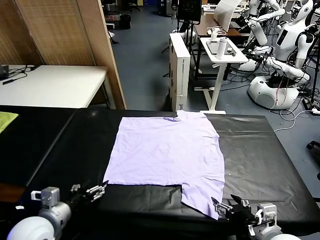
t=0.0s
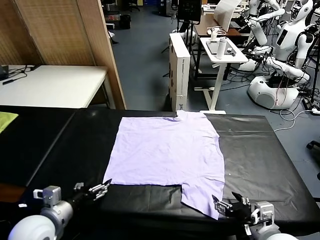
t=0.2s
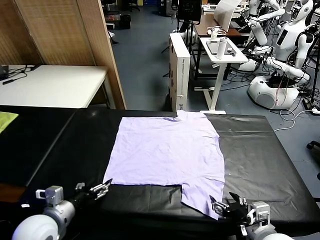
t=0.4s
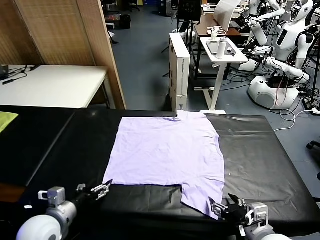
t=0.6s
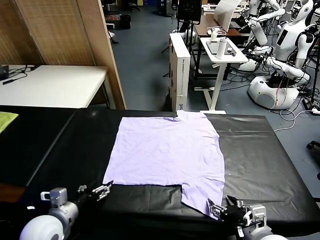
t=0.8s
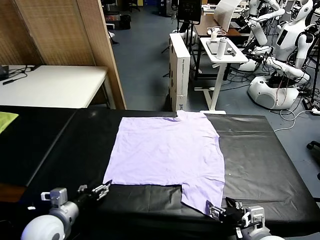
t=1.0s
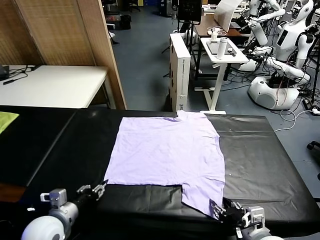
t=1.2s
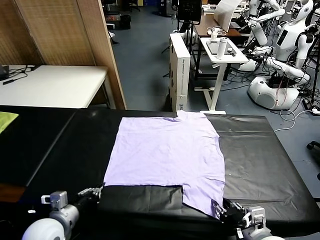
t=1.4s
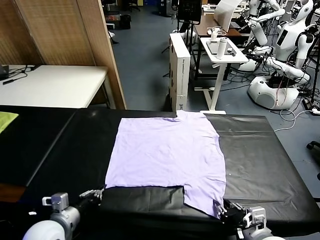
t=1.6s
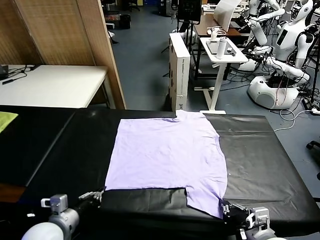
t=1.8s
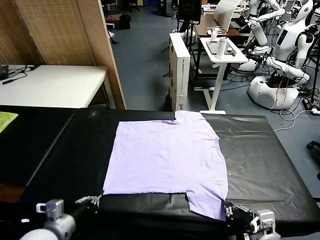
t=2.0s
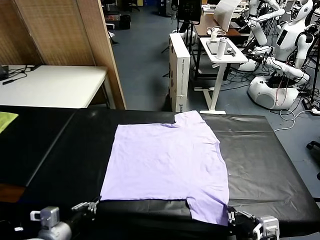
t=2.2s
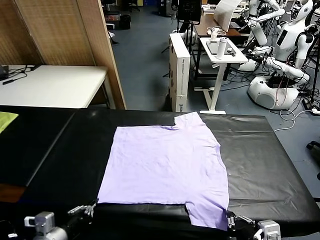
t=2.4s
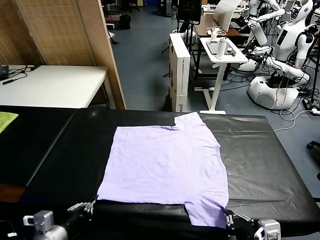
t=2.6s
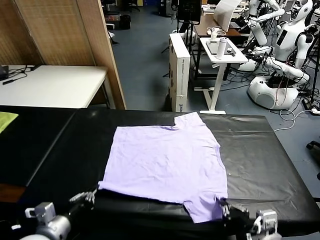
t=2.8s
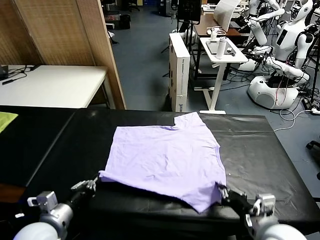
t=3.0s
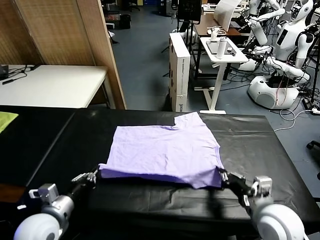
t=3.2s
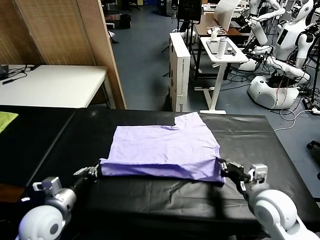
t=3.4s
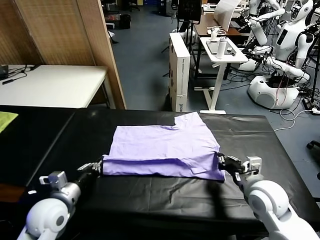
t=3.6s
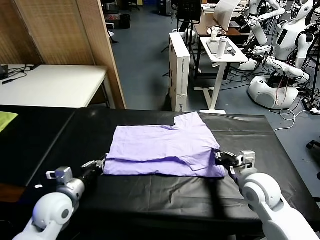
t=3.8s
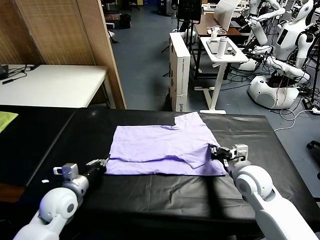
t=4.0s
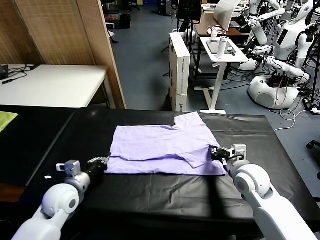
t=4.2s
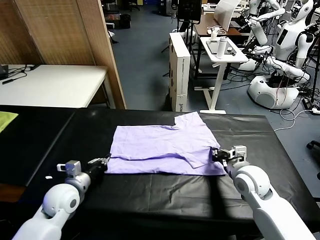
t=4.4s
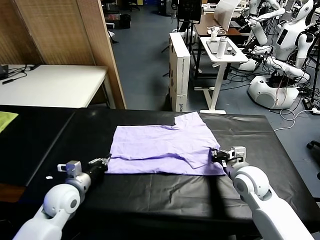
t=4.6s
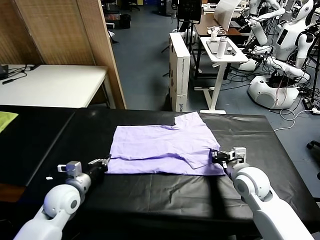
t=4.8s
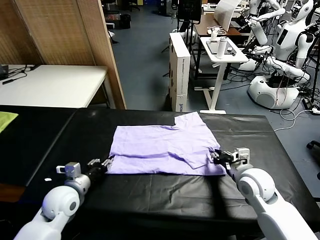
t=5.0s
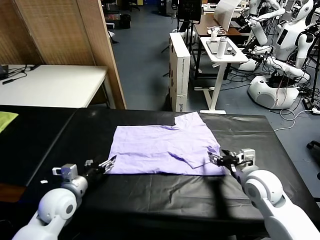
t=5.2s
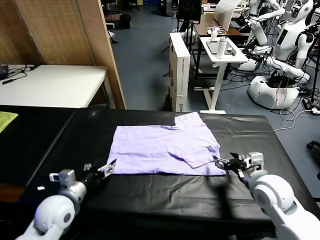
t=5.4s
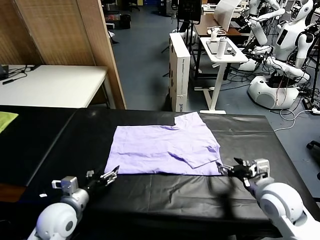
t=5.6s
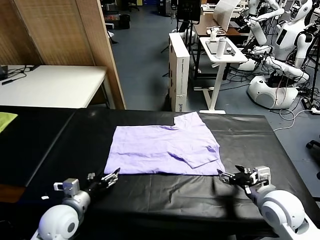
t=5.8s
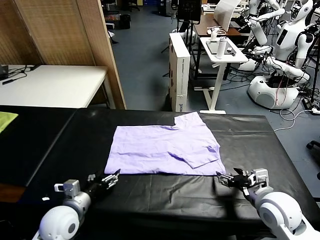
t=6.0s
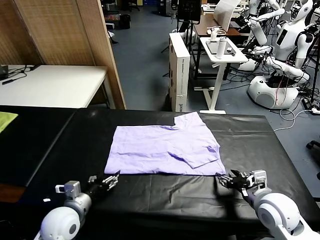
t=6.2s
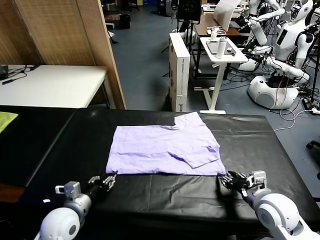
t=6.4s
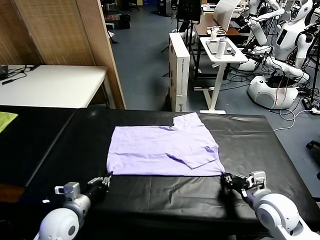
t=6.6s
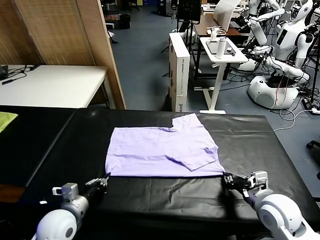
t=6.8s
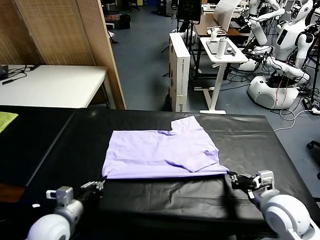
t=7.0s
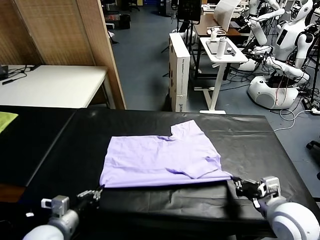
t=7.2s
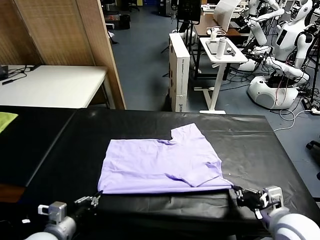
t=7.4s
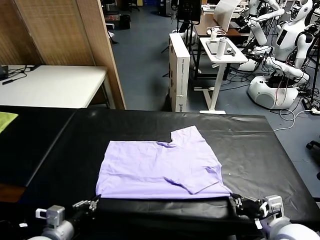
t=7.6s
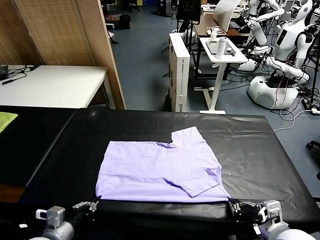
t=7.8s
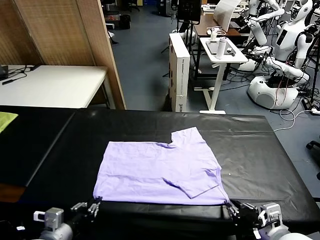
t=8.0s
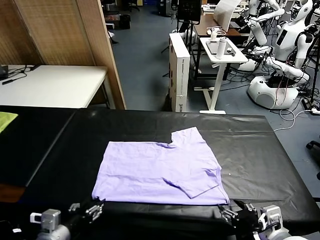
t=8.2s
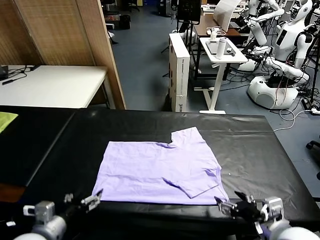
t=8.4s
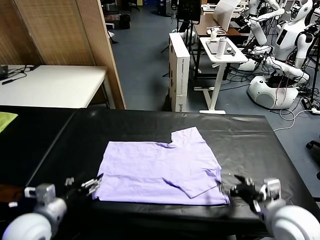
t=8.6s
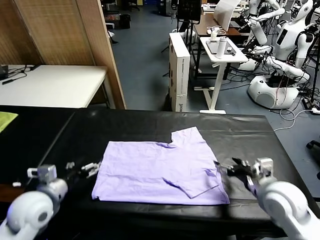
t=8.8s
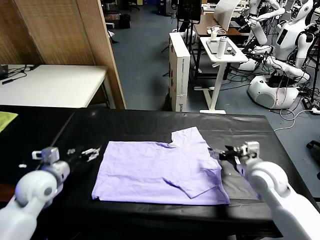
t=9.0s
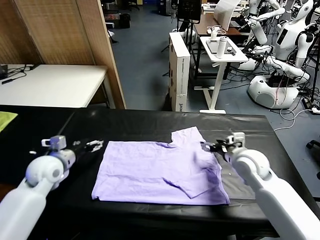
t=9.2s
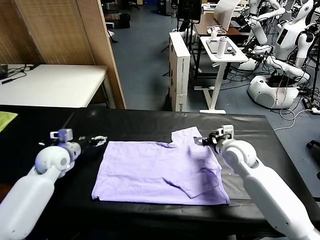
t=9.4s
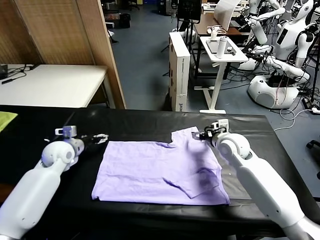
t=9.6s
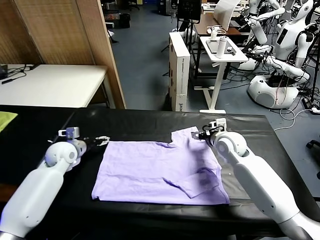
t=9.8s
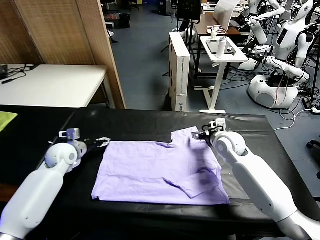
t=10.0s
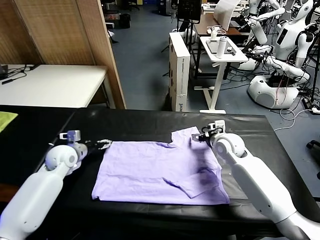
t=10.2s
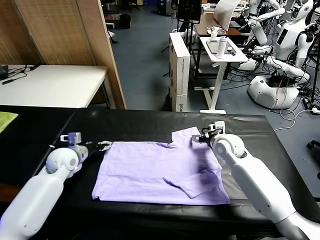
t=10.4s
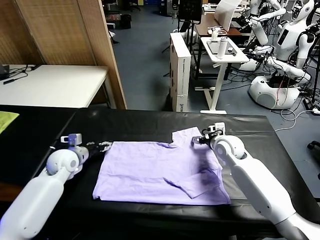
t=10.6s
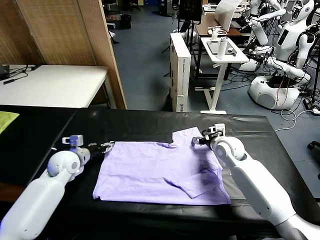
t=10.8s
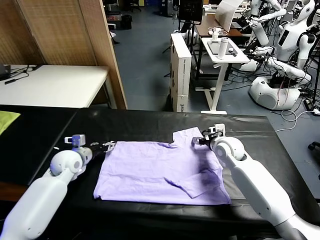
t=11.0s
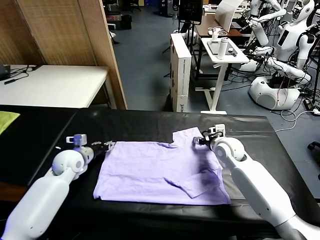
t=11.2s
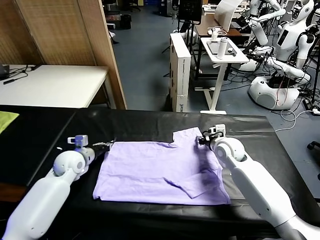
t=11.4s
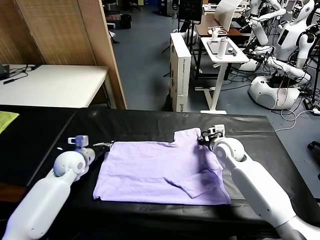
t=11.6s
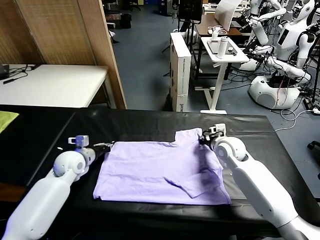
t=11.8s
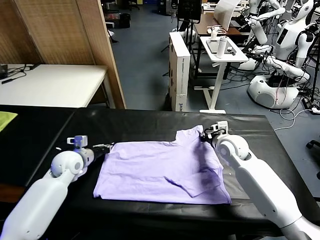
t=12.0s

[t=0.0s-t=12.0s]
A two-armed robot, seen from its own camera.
Task of the whole recording: fold and organize the clothes.
Step, t=0.0s to t=1.8s: use both grippers simultaneously to clamp the lower edge of the clothing fabric.
Step, t=2.2s to t=5.2s: use both grippers to drag the lower edge of the fabric forward and fold it over the upper edge.
Step, t=5.4s to t=8.2s: Drag the clothes downward with both gripper.
Step, t=8.4s to t=11.8s: use both grippers simultaneously to clamp the upper edge of the clothing fabric.
t=1.6s to t=3.0s: The right gripper is displaced forward by roughly 5 cm.
t=3.0s to t=4.4s: The grippers both shift forward by roughly 10 cm.
t=4.4s to t=6.0s: Both grippers move backward, roughly 10 cm. The left gripper opens. Meanwhile the right gripper opens up.
t=6.0s to t=7.6s: The grippers both shift backward by approximately 10 cm. The right gripper closes, while the left gripper closes.
t=7.6s to t=9.0s: Both grippers move forward, about 20 cm. The right gripper opens up. Meanwhile the left gripper opens up.
t=9.0s to t=10.4s: The right gripper heads forward, covering approximately 10 cm, while the left gripper shifts approximately 10 cm forward and downward.
t=10.4s to t=12.0s: The right gripper closes. The left gripper closes up.

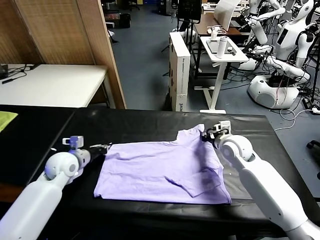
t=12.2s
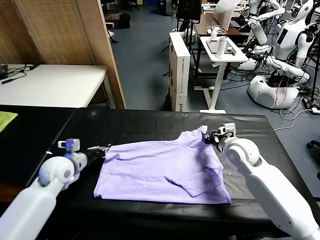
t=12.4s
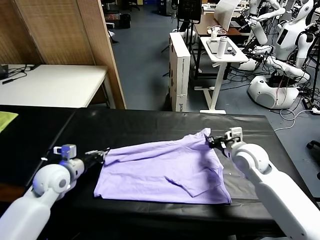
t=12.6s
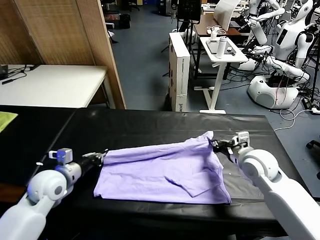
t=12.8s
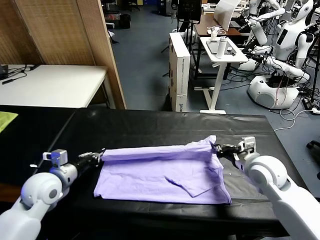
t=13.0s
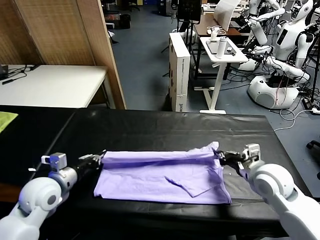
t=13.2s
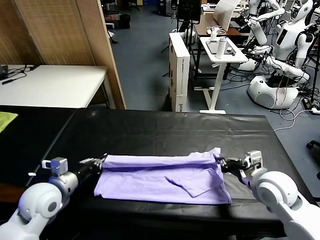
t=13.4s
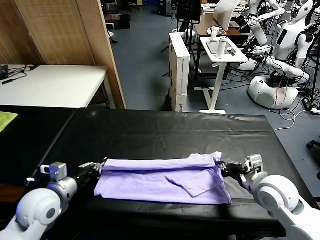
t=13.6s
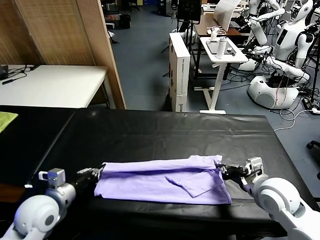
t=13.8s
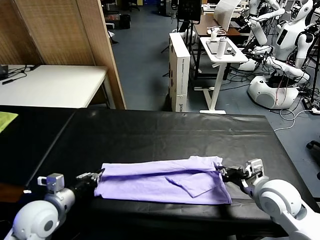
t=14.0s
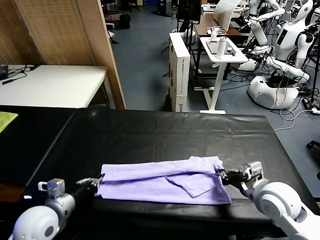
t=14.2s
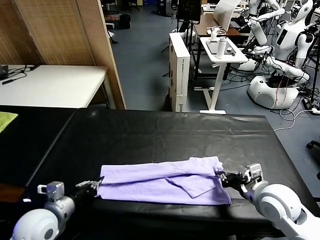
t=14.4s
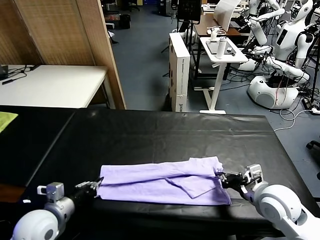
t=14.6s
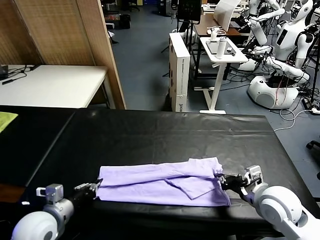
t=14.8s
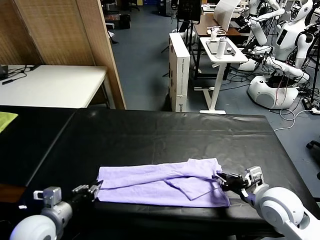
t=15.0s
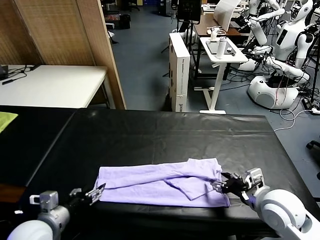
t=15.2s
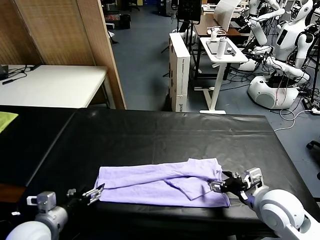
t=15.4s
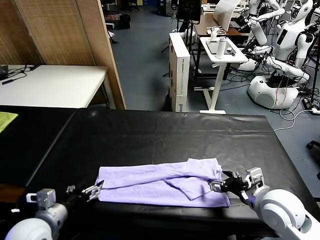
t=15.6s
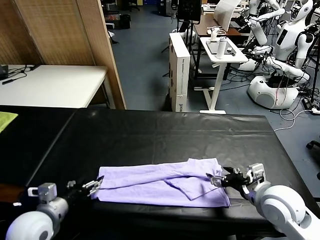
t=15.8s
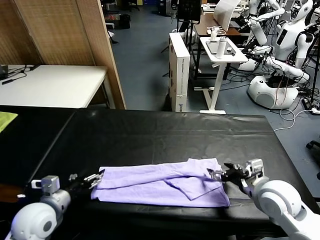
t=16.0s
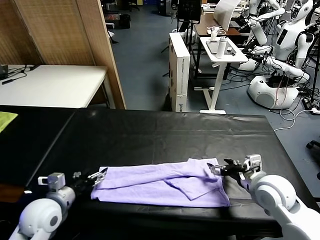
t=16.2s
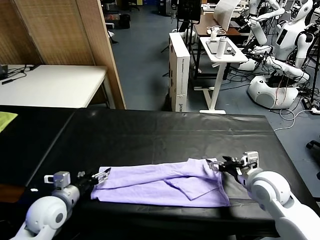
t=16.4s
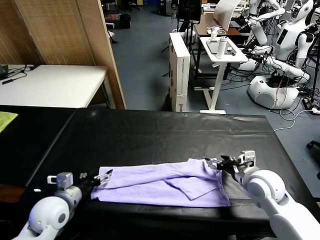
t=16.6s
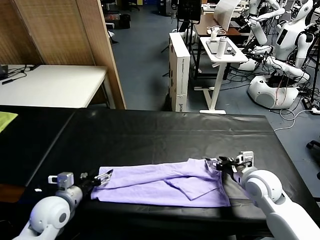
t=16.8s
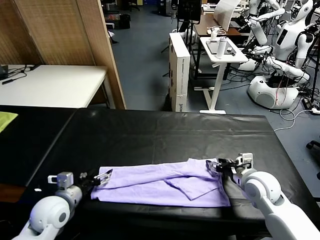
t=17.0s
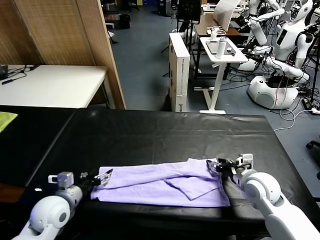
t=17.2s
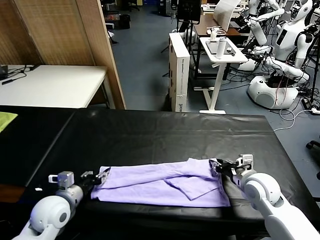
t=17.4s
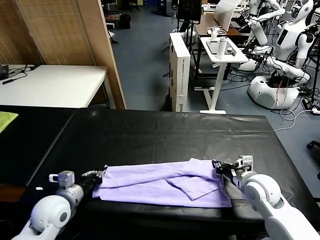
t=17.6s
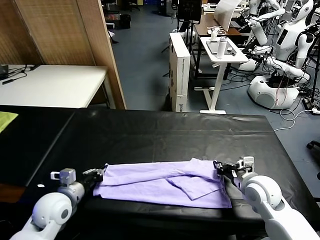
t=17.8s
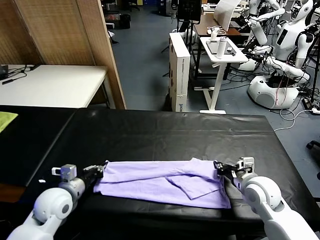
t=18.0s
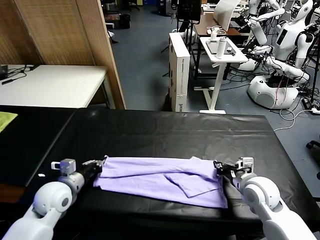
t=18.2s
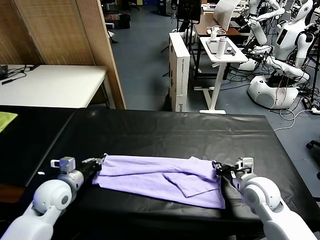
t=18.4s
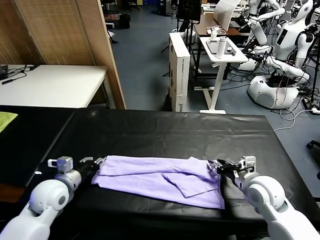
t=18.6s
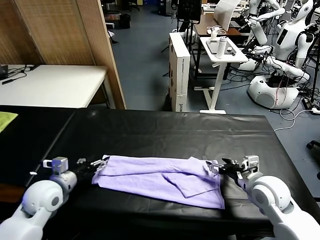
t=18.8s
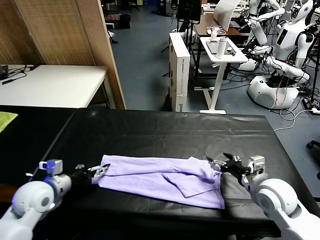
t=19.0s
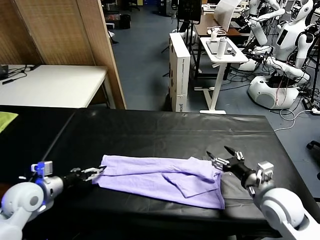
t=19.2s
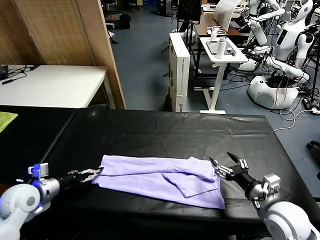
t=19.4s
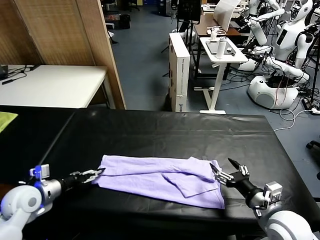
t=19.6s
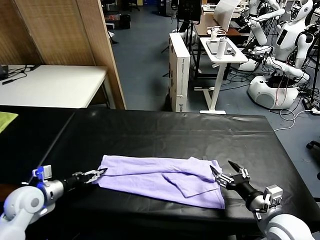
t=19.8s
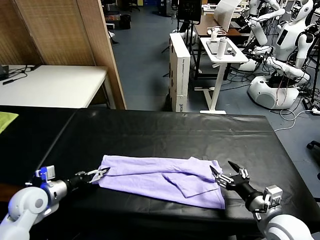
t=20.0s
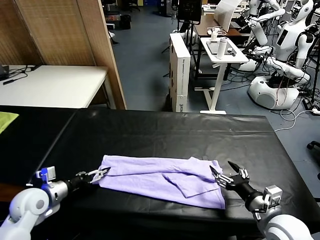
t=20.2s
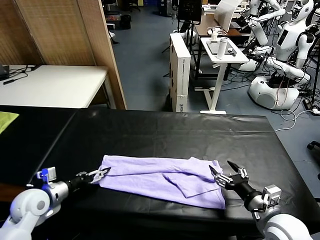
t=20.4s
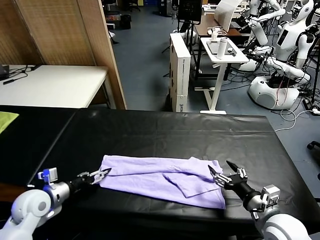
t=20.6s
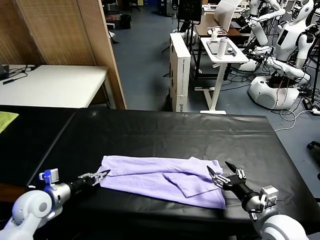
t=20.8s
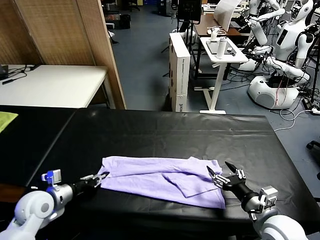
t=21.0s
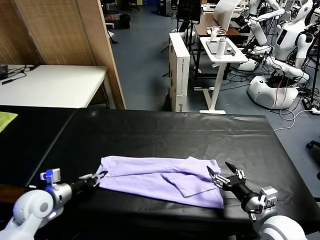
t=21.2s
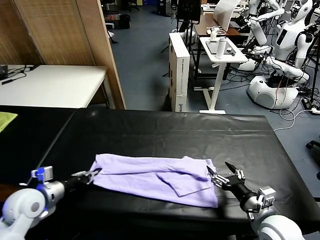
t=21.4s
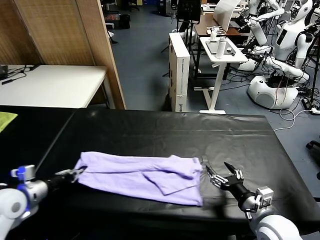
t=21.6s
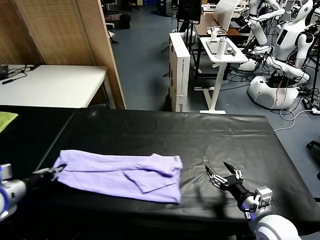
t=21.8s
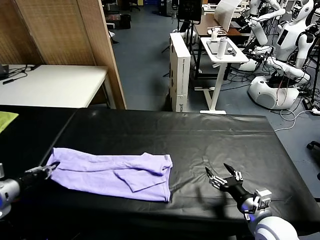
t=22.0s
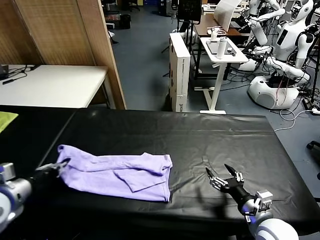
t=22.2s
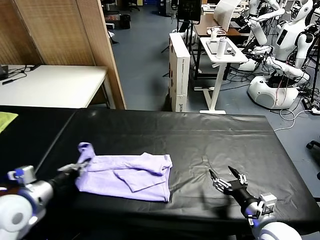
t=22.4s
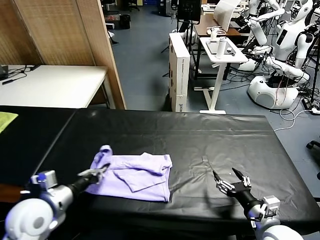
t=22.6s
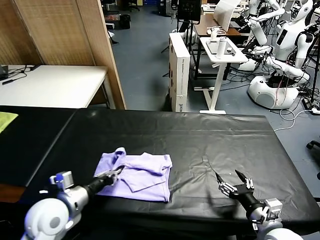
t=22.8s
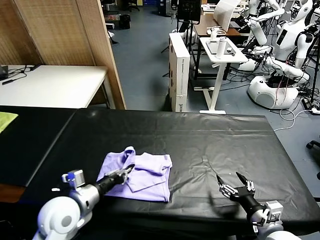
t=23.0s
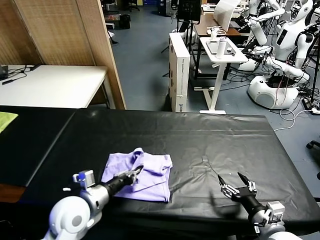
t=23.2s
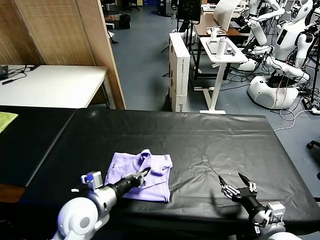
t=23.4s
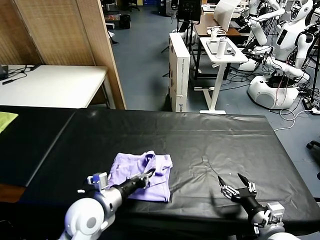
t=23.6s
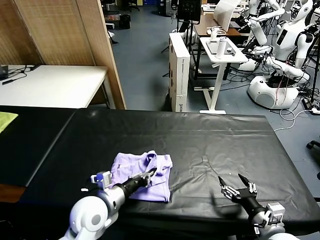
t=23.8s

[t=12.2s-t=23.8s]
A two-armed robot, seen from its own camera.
Task of the whole recording: fold and organize the clothes.
Step, t=12.2s to t=15.2s: use both grippers to drag the upper edge of the fabric backward and fold it over the lower edge.
Step, t=15.4s to t=21.0s: use the left gripper to clamp the left edge of the fabric.
t=12.2s to t=13.6s: Both grippers travel together backward, some 15 cm.
t=13.6s to t=15.0s: The left gripper shifts some 5 cm backward; the right gripper opens up.
t=15.0s to t=16.6s: The two grippers go roughly 5 cm forward. The left gripper opens its fingers.
t=16.6s to t=18.0s: The right gripper closes up. Meanwhile the left gripper closes.
t=18.0s to t=19.4s: The right gripper travels backward by some 10 cm, and opens up; the left gripper heads to the left, covering about 10 cm, and opens its fingers.
t=19.4s to t=21.0s: The left gripper closes its fingers.
t=21.0s to t=22.4s: The left gripper is displaced upward by approximately 10 cm.
t=22.4s to t=23.8s: The left gripper shifts some 20 cm to the right and downward.
